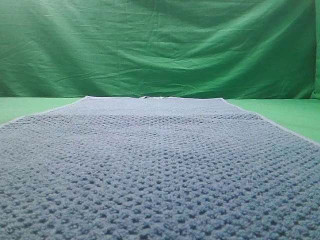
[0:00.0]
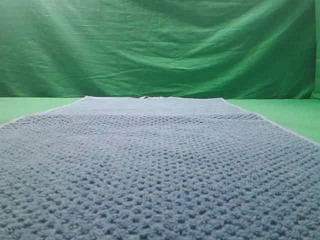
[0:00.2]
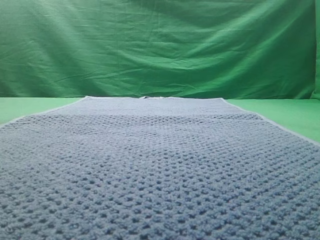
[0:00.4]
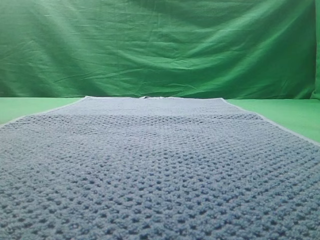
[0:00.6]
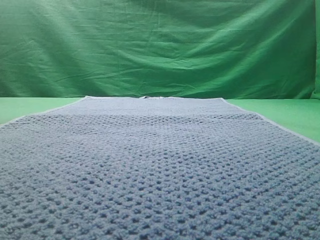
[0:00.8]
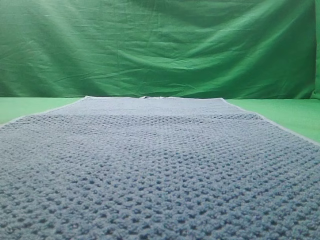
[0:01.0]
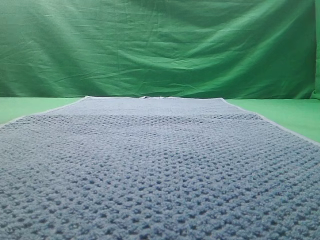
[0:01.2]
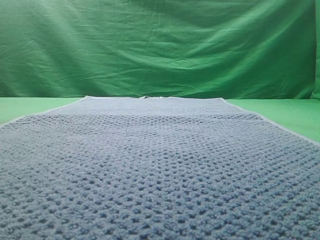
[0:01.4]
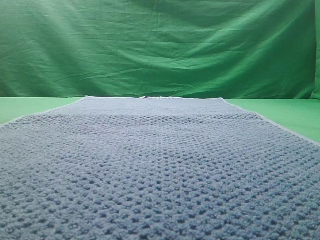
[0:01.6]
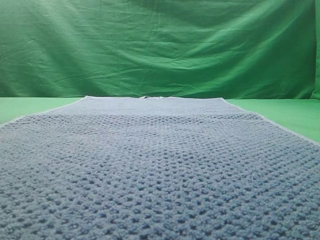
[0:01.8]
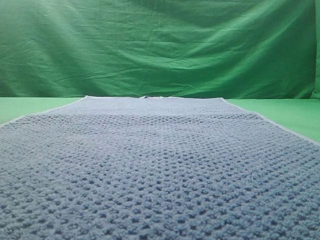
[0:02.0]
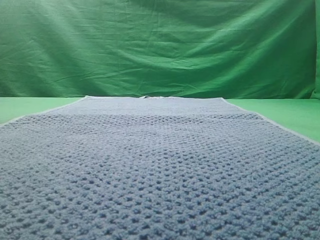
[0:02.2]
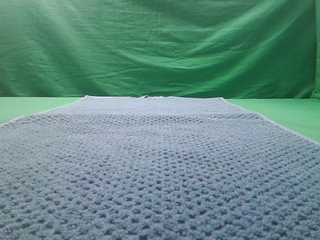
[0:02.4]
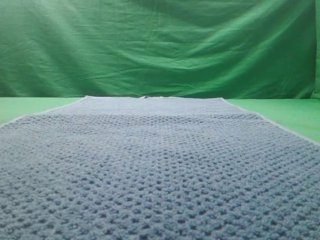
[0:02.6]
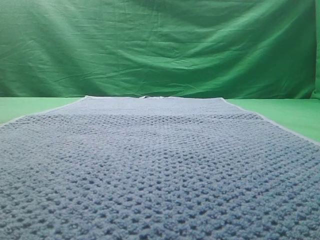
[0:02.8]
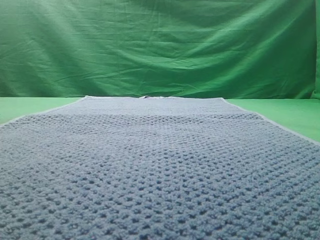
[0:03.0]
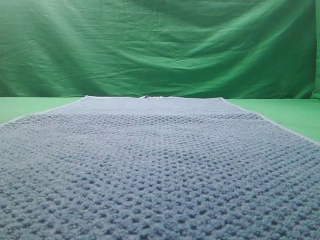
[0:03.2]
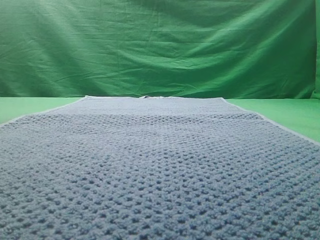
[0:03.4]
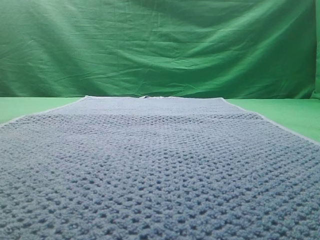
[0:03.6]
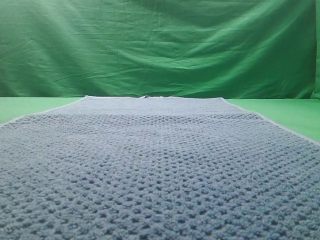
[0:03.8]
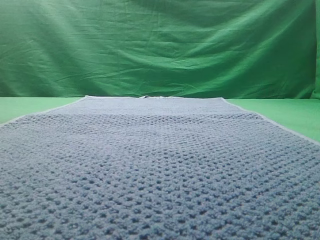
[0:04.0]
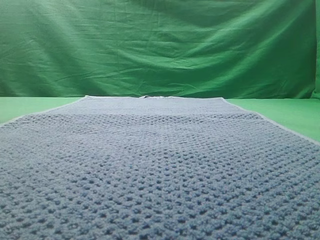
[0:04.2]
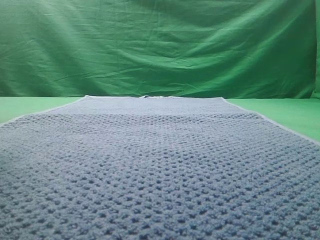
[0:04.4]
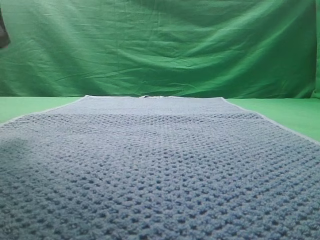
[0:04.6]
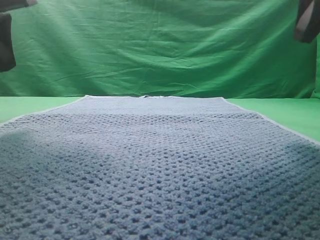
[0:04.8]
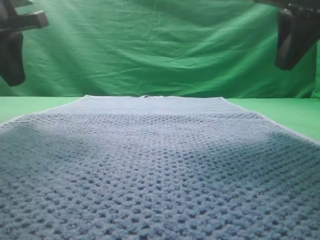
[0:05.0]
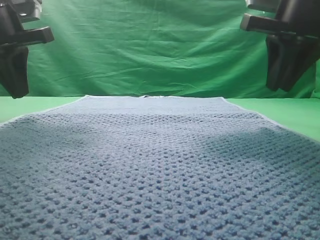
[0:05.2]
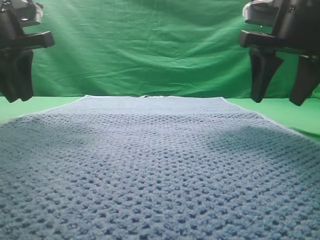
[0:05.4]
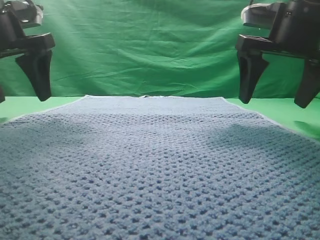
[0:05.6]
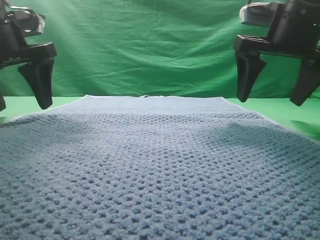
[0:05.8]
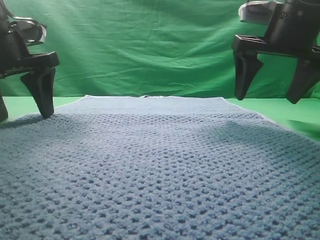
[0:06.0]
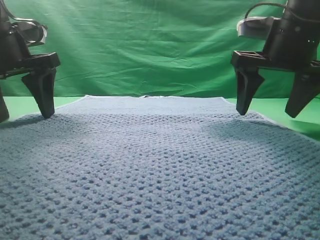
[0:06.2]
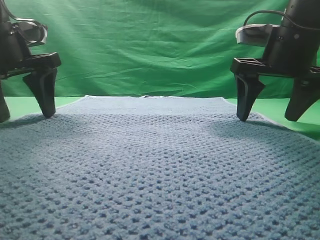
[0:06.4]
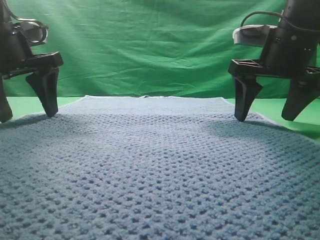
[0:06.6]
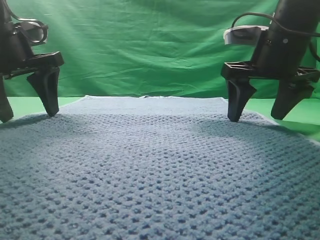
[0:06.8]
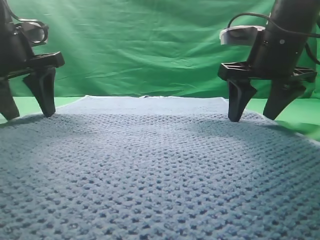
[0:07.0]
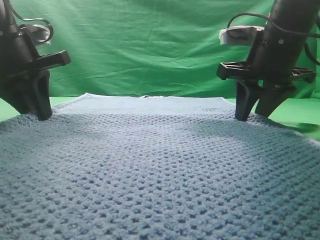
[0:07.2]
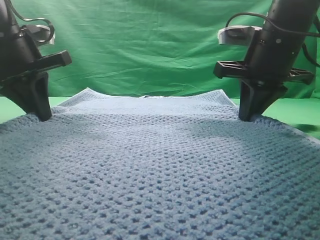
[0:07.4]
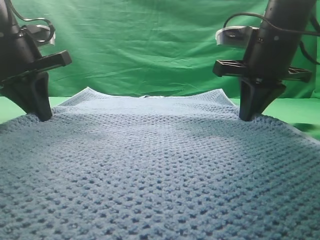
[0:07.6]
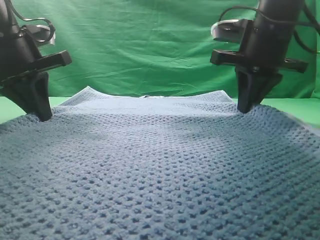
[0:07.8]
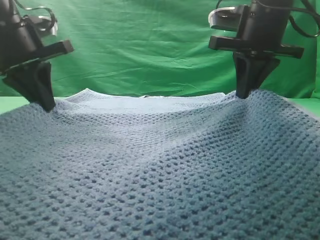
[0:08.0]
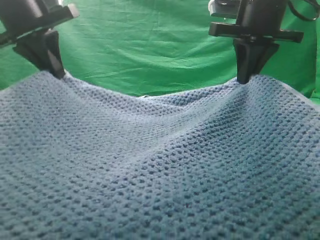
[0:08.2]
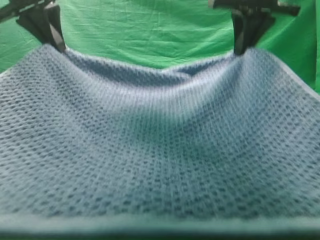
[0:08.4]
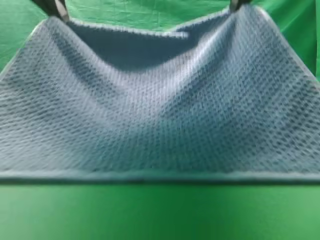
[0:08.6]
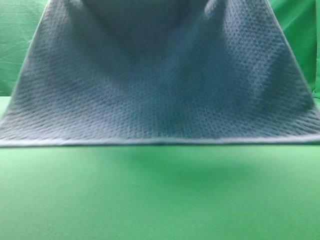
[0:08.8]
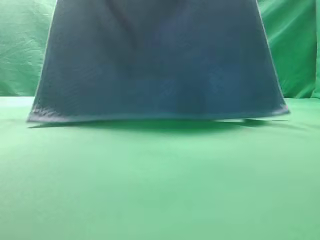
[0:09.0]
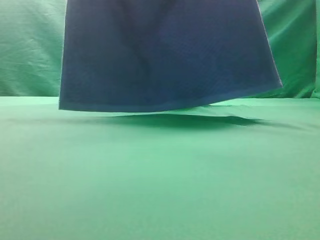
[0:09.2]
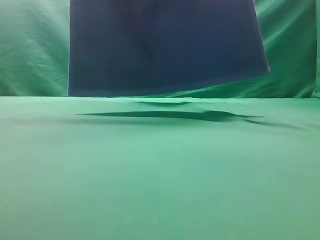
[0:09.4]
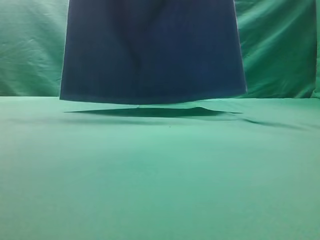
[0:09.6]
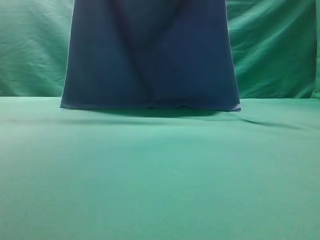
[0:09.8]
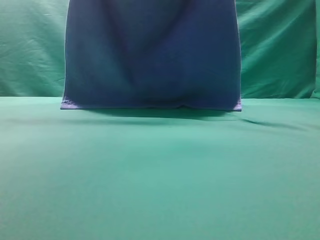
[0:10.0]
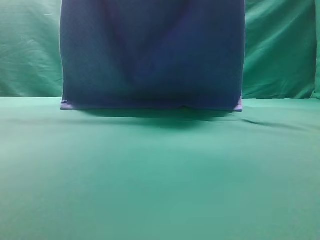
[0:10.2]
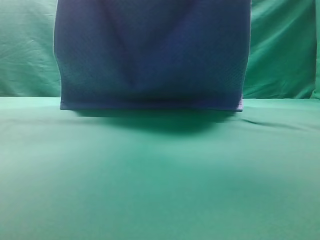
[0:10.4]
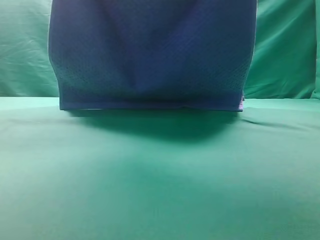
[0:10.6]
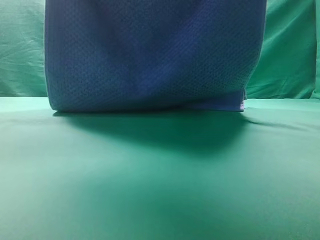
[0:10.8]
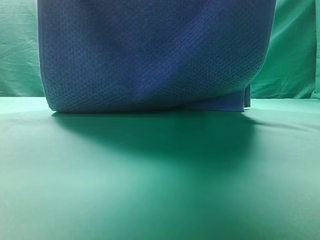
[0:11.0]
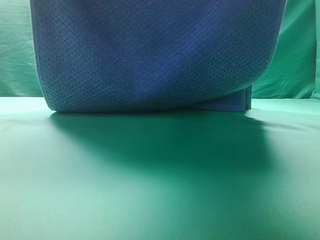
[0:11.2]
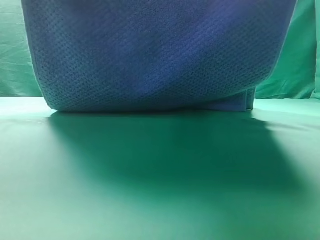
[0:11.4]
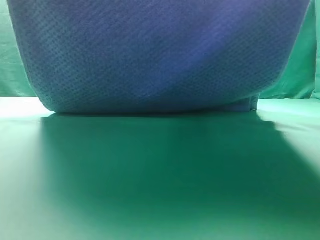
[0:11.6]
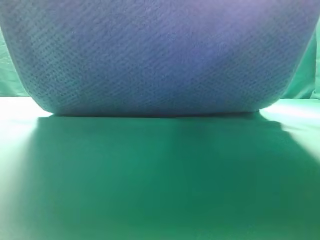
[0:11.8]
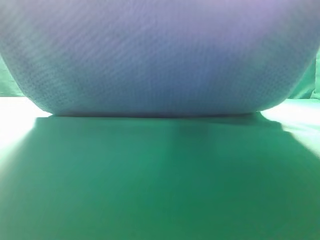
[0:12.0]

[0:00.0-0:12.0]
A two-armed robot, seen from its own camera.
Task of the whole recording: fold the towel on the table twice.
Step, 0:00.0 to 0:09.4: pick up the towel with two arm.

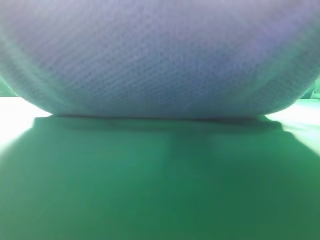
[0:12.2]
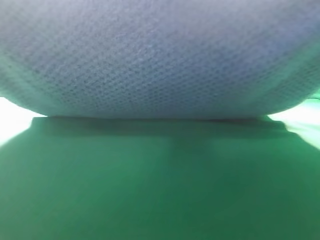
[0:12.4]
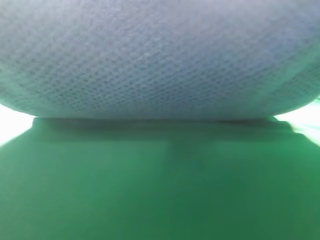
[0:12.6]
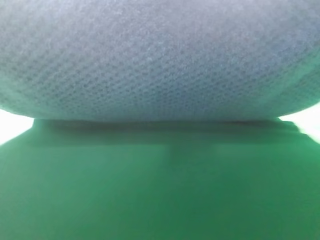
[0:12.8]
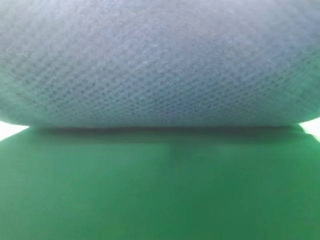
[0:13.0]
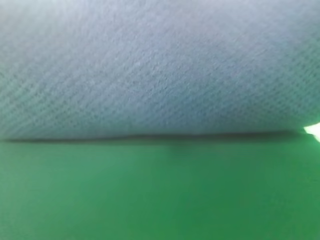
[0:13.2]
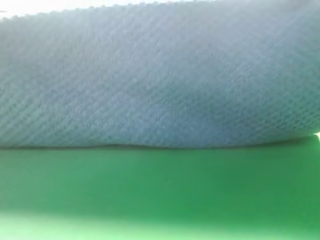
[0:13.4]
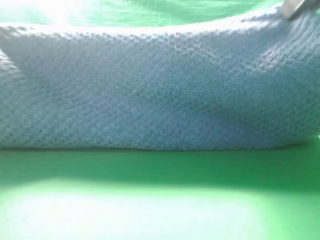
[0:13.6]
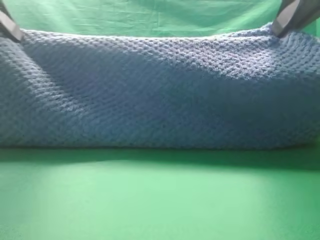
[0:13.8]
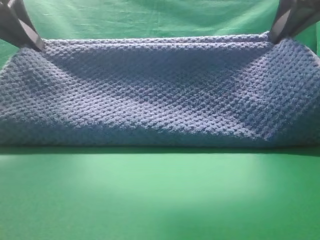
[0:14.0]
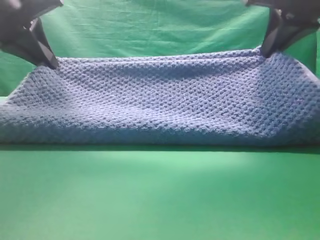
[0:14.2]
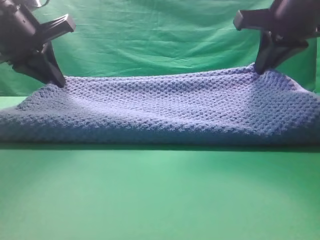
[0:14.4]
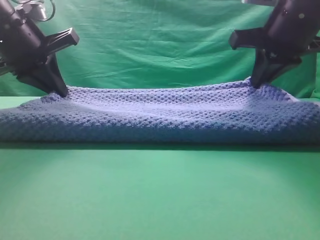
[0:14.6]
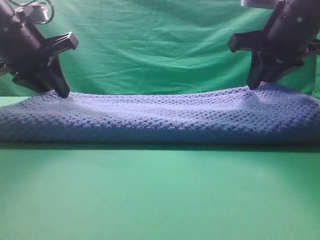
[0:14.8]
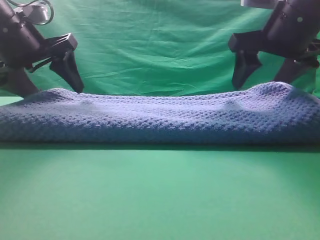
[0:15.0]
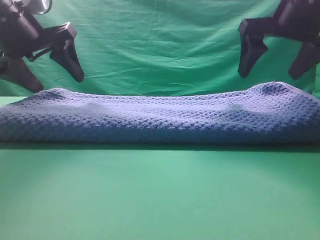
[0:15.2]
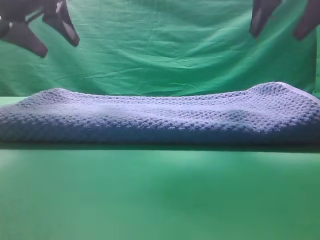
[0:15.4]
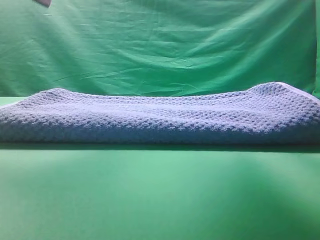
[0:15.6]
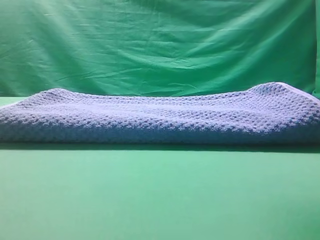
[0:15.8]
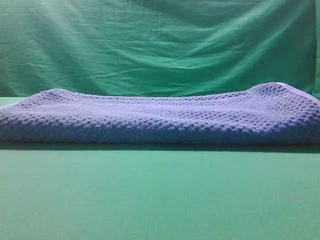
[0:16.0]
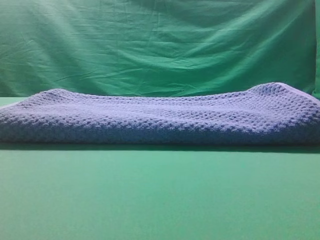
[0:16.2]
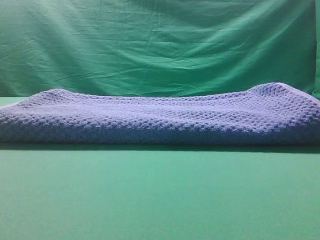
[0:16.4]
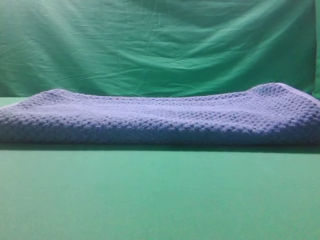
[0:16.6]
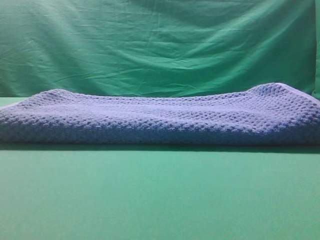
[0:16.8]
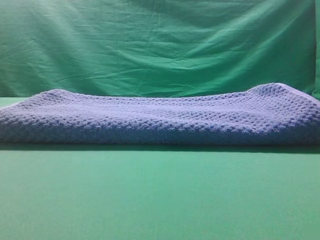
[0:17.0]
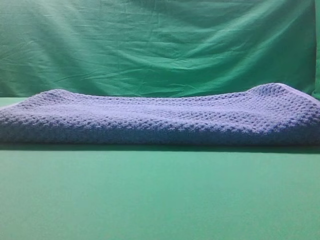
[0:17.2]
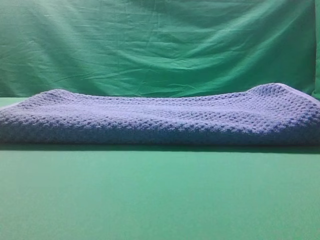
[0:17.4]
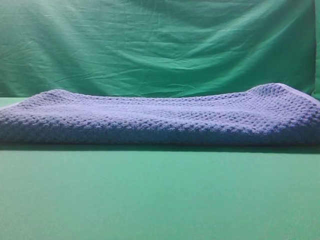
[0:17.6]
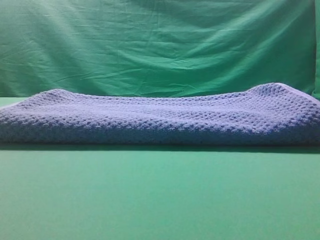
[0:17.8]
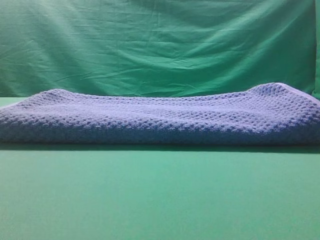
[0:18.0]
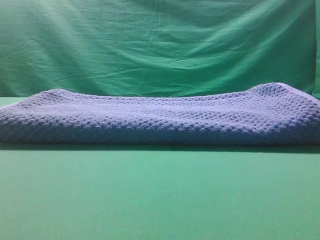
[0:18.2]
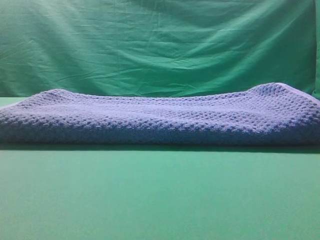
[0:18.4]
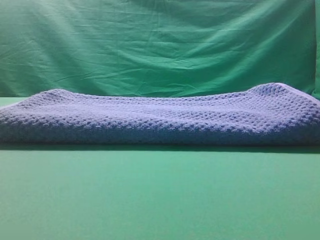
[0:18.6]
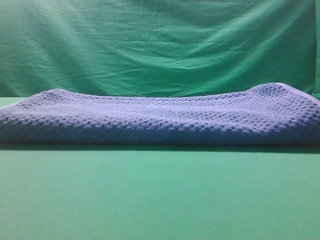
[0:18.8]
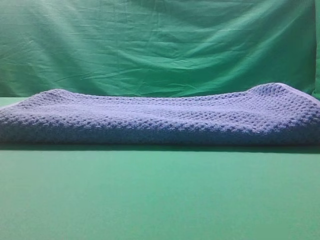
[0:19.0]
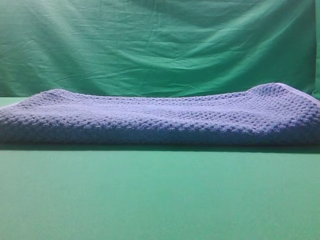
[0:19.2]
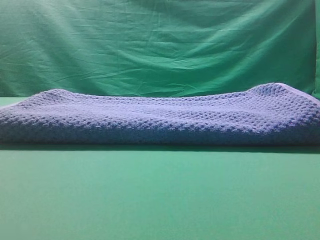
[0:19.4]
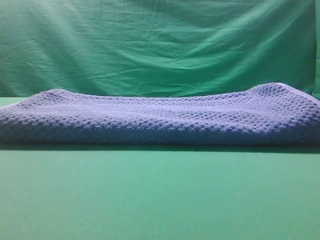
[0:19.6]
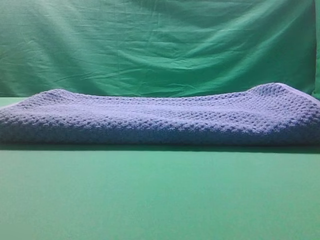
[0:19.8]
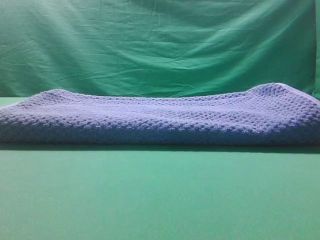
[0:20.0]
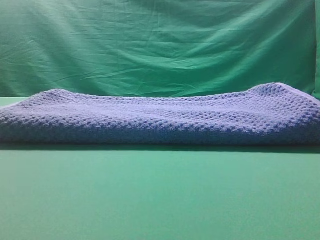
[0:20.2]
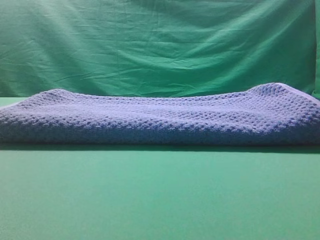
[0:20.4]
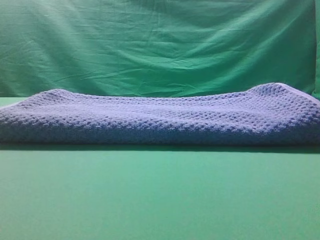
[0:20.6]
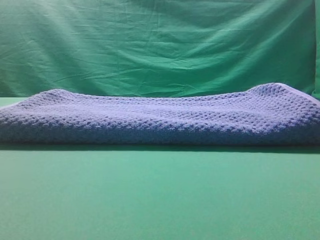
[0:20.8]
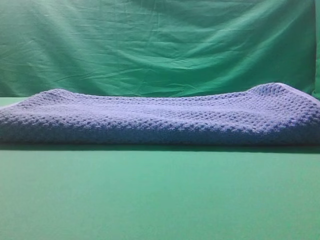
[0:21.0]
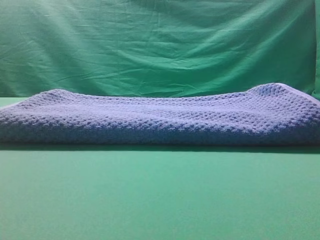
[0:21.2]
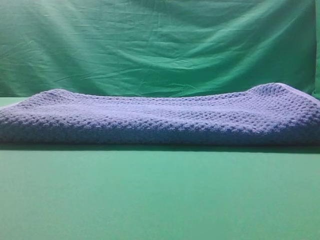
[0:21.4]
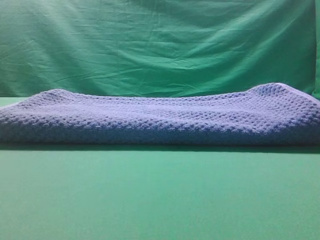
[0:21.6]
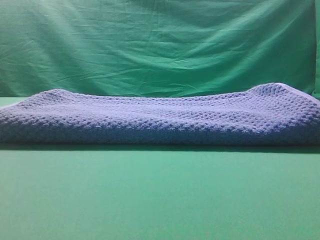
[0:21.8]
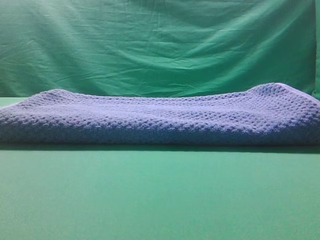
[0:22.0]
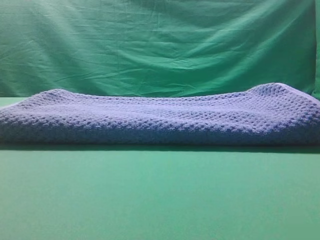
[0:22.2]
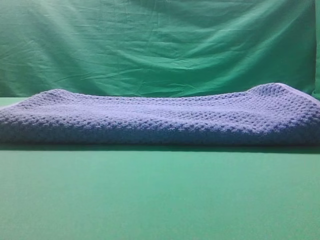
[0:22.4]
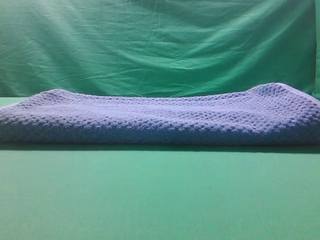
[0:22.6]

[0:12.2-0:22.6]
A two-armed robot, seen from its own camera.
Task of the whole recording: fold the towel on the table twice.
Step, 0:12.2 to 0:15.2: Fold the towel twice on the table.
